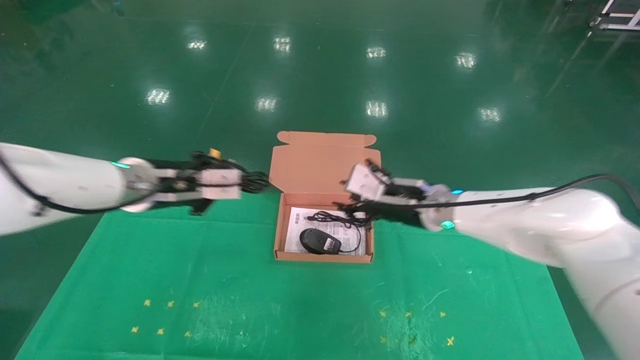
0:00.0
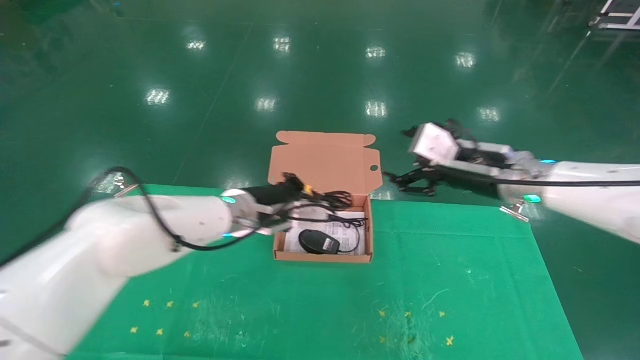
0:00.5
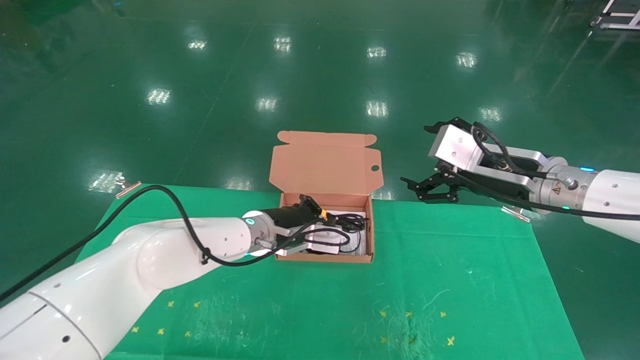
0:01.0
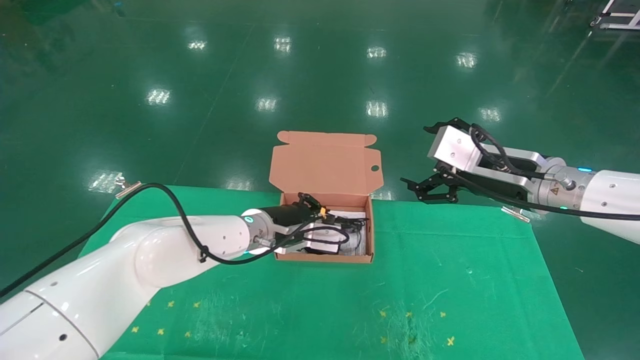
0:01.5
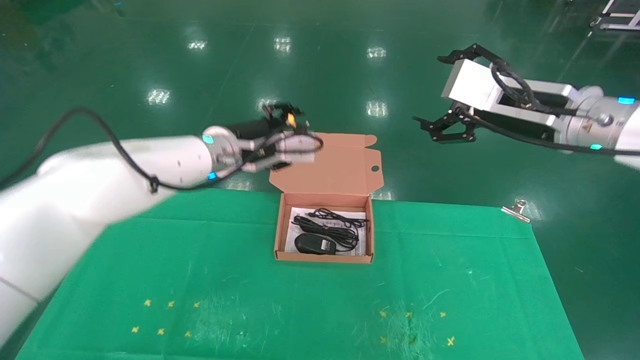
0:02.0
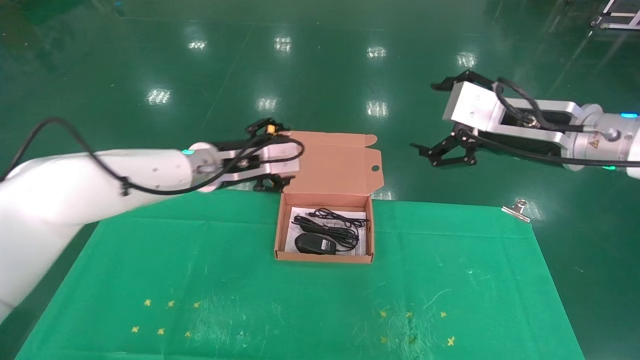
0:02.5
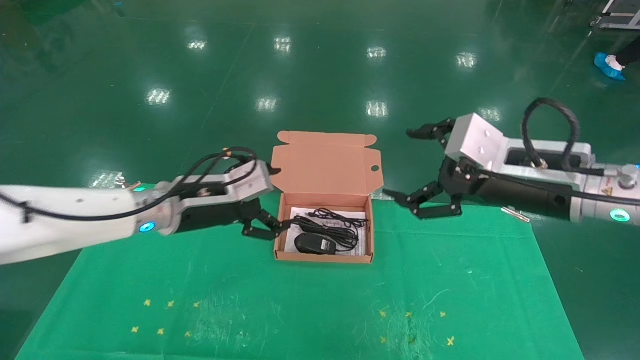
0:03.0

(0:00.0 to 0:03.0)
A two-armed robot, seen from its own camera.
Task of the whole recording: grasp data cable left put into box grasp mouse right put into box.
Step, 0:00.0 - 0:02.5: Place the mouse and power cord into the box.
0:00.0 - 0:01.5: The left gripper moves to the right, downward and forward, some 15 cm; the right gripper heads to the right, backward and upward, covering about 15 cm, and opens.
0:01.5 - 0:03.0: The left gripper moves to the left, backward and upward, approximately 15 cm, and opens, while the right gripper heads backward, covering some 5 cm.
